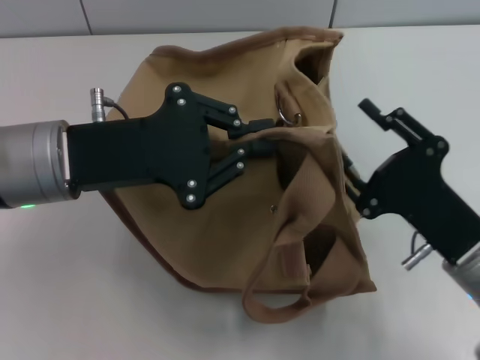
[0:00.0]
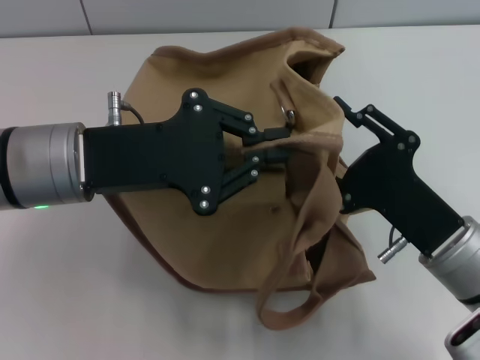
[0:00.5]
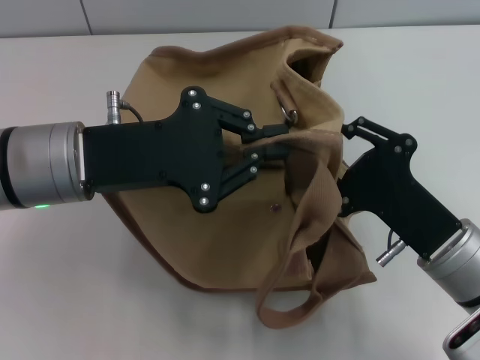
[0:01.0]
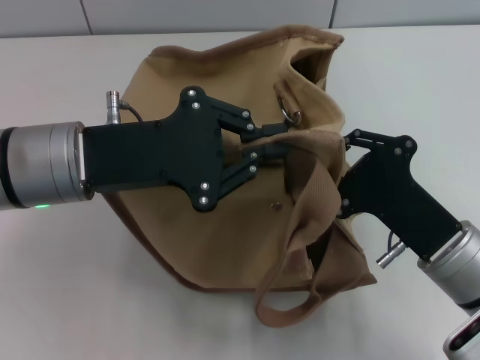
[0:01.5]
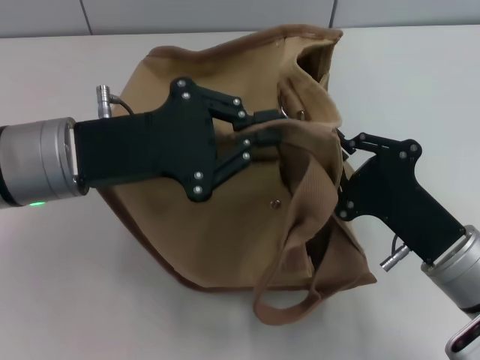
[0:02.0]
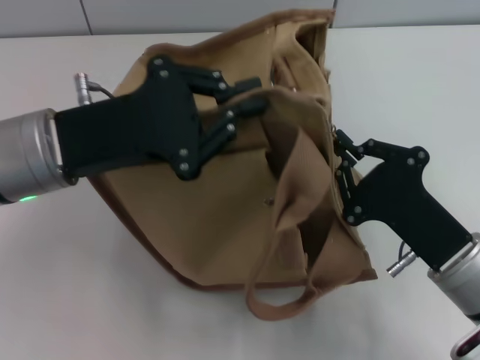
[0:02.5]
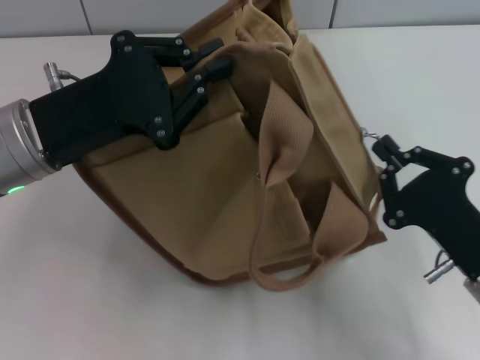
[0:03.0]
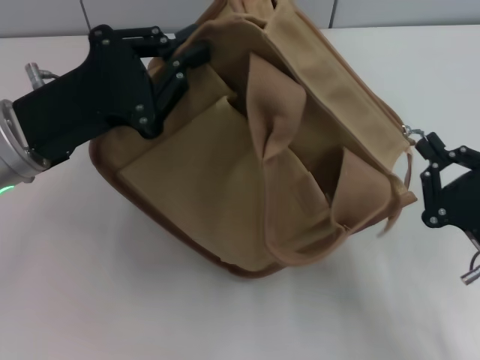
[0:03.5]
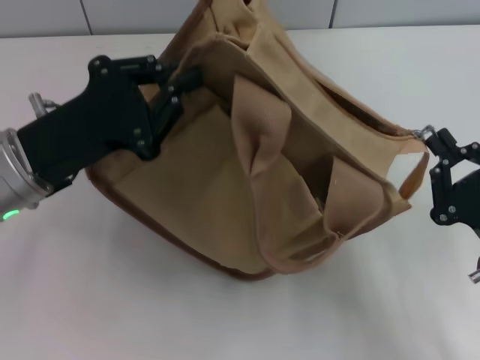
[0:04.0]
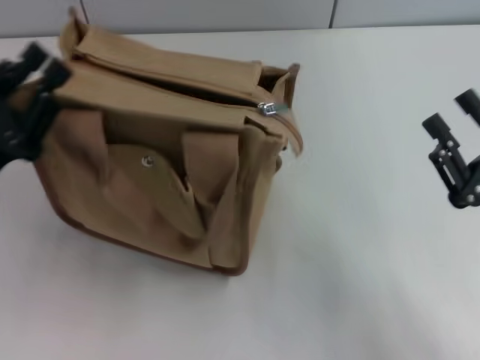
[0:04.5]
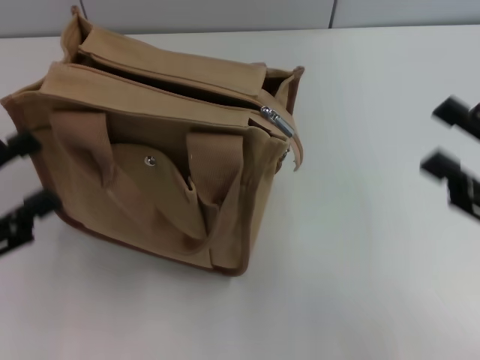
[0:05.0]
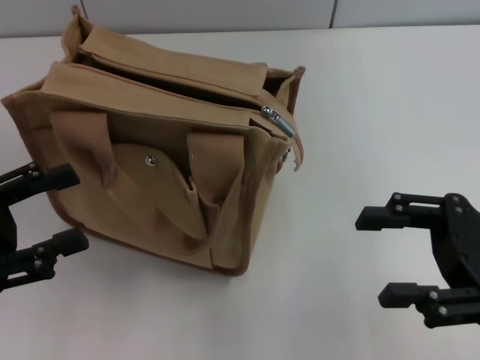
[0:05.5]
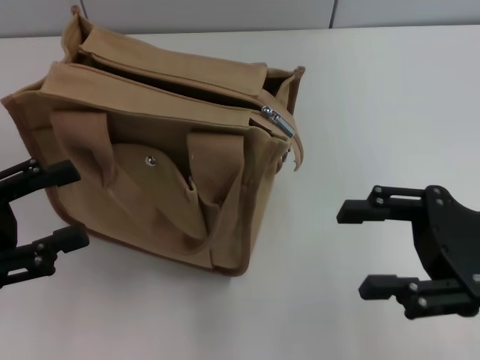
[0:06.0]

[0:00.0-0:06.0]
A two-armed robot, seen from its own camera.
Step, 0:00.0 to 0:04.0: Pull open the zipper with your right hand.
0:00.0 to 0:02.0: The right gripper closes.
0:02.0 to 0:04.0: The left gripper shifts by about 5 cm. Meanwhile the right gripper is displaced to the right by some 5 cm.
0:04.0 to 0:06.0: The right gripper is displaced upward by approximately 10 cm, and opens. Meanwhile the left gripper travels to the left and backward by about 15 cm, and opens up.
